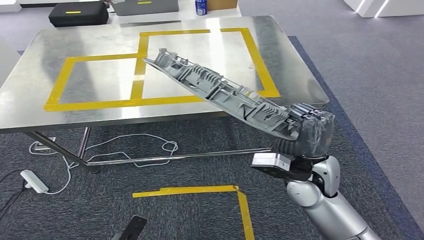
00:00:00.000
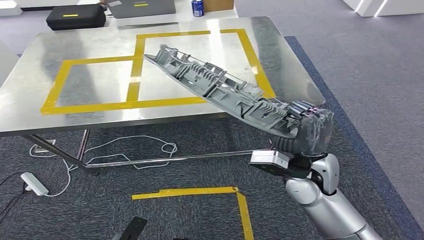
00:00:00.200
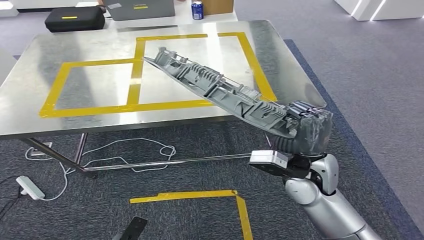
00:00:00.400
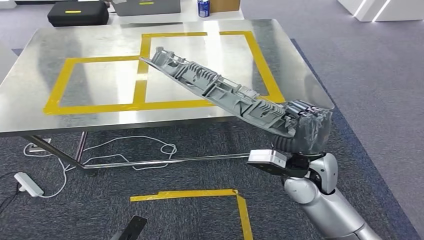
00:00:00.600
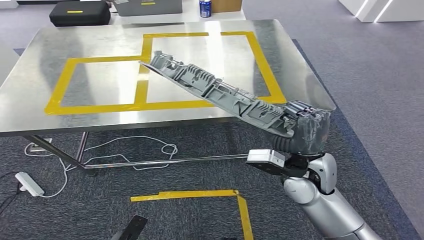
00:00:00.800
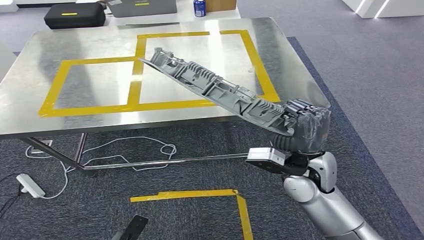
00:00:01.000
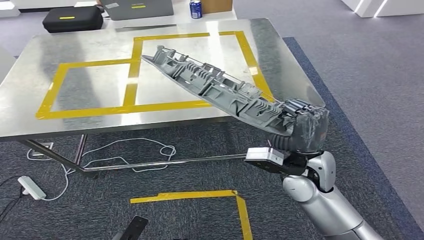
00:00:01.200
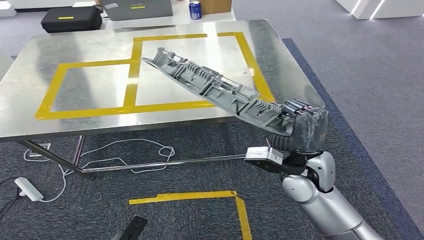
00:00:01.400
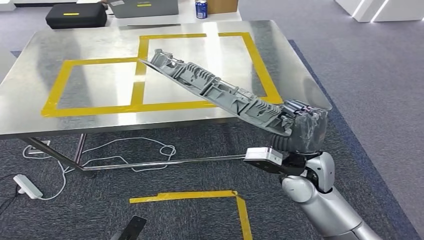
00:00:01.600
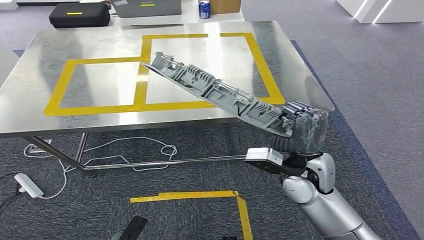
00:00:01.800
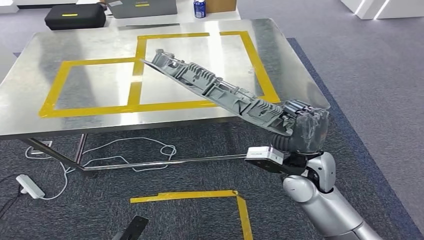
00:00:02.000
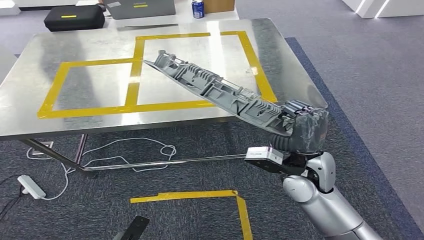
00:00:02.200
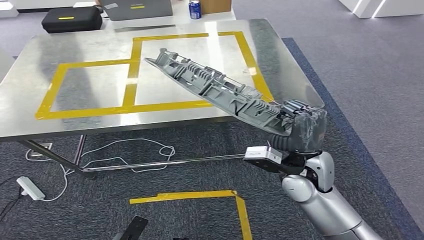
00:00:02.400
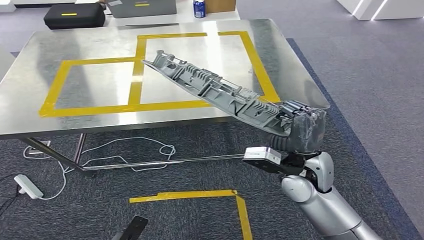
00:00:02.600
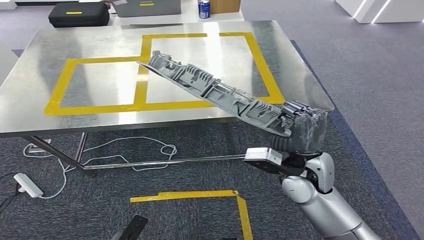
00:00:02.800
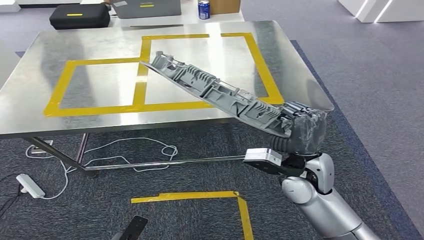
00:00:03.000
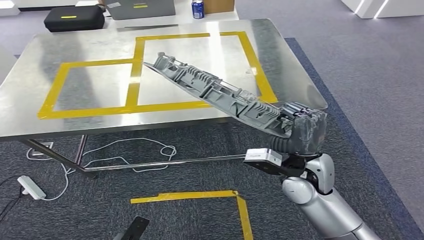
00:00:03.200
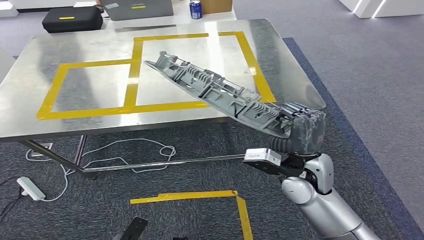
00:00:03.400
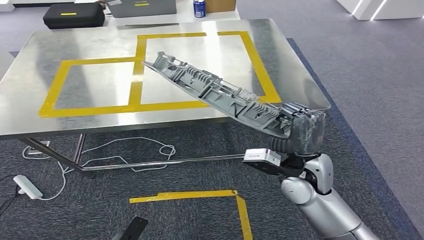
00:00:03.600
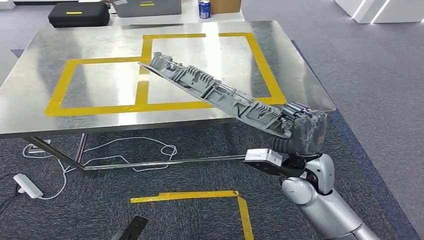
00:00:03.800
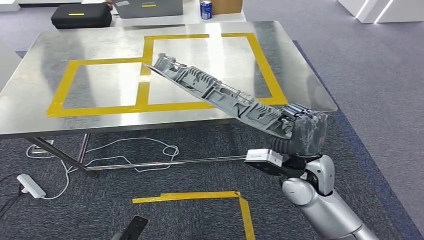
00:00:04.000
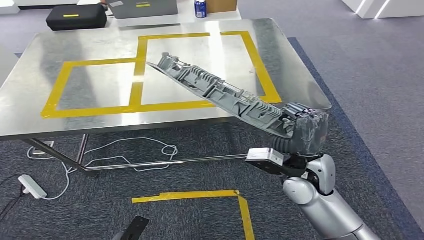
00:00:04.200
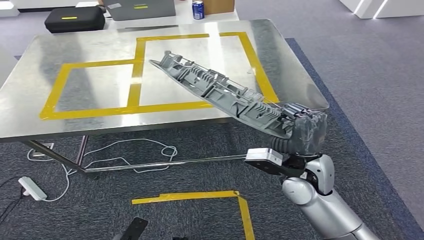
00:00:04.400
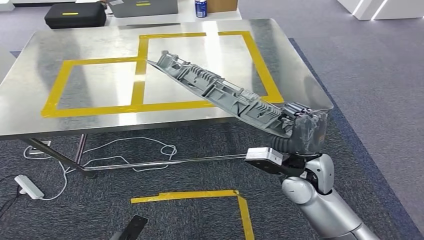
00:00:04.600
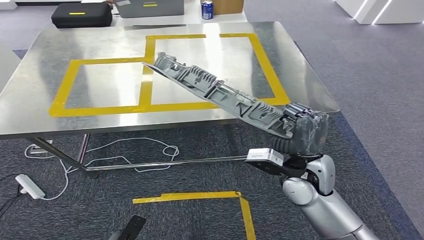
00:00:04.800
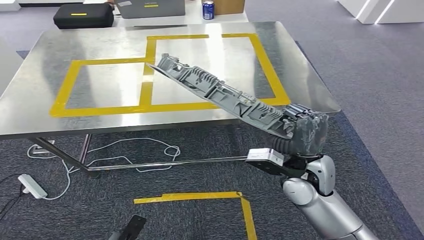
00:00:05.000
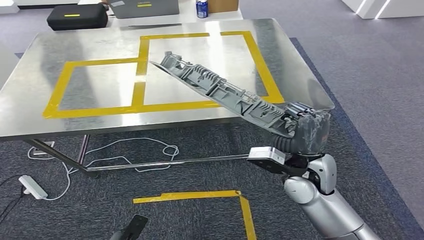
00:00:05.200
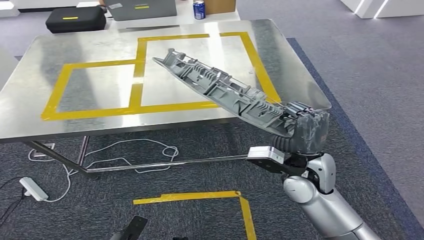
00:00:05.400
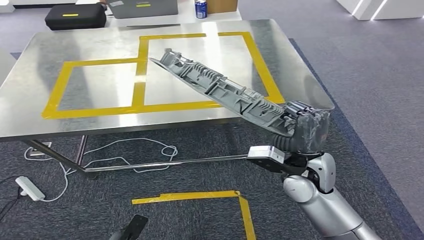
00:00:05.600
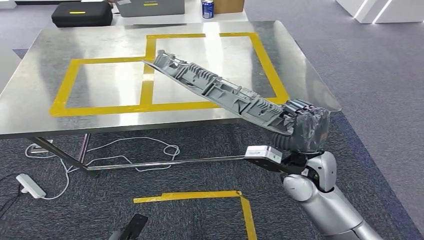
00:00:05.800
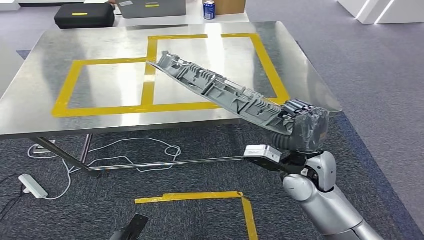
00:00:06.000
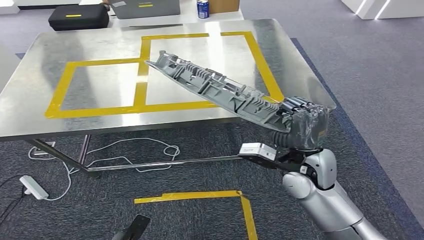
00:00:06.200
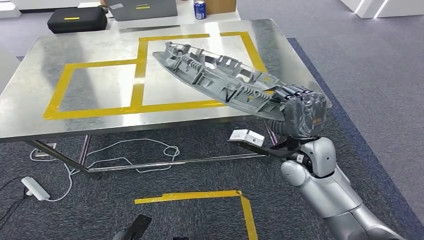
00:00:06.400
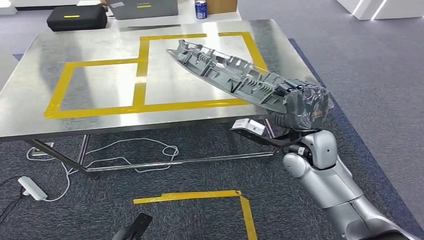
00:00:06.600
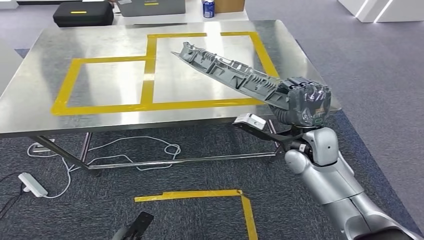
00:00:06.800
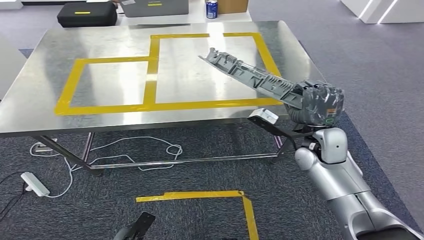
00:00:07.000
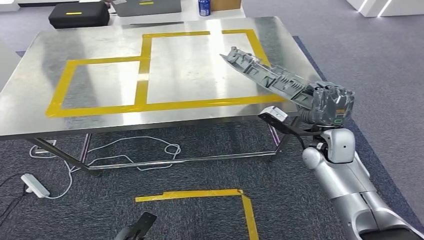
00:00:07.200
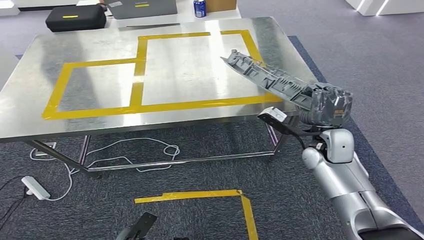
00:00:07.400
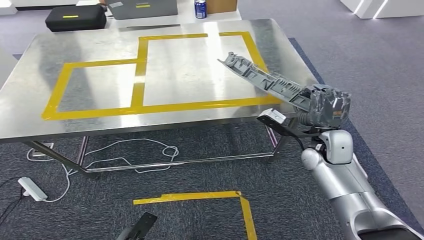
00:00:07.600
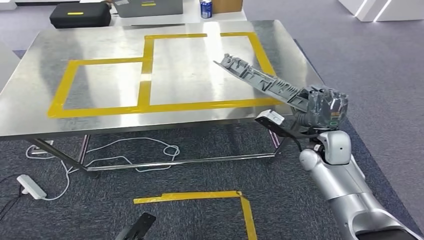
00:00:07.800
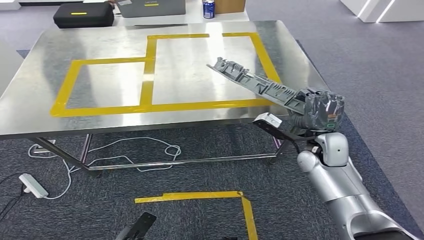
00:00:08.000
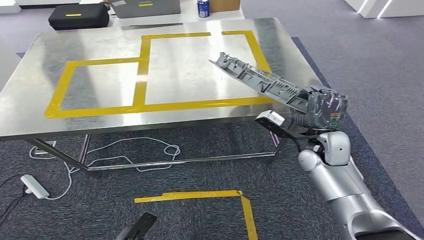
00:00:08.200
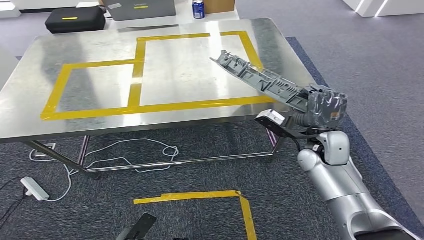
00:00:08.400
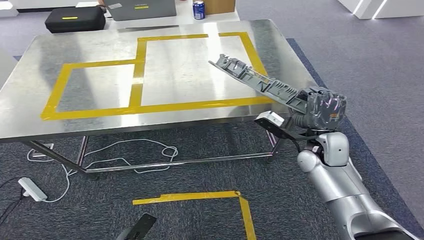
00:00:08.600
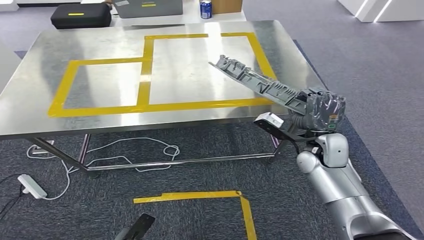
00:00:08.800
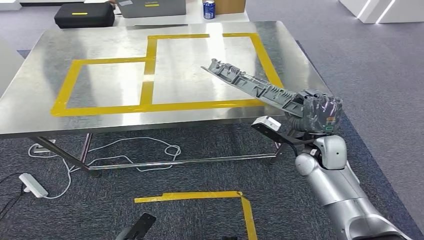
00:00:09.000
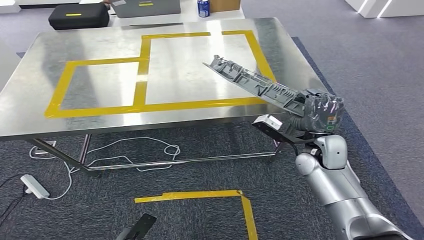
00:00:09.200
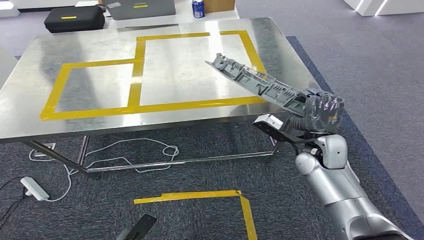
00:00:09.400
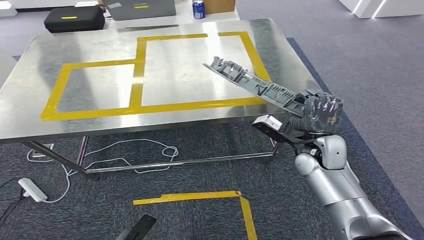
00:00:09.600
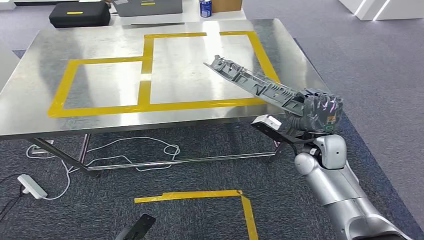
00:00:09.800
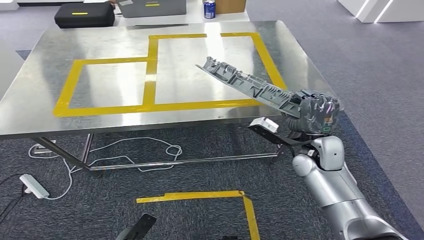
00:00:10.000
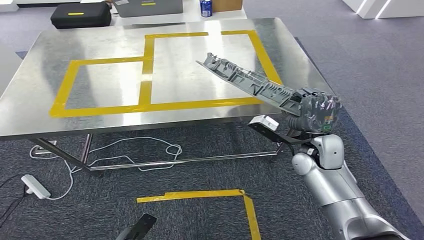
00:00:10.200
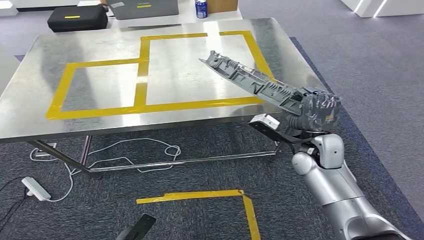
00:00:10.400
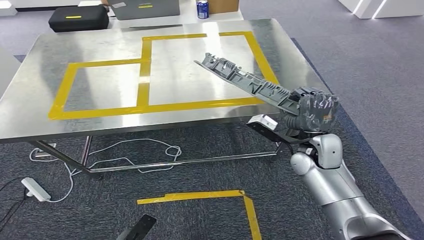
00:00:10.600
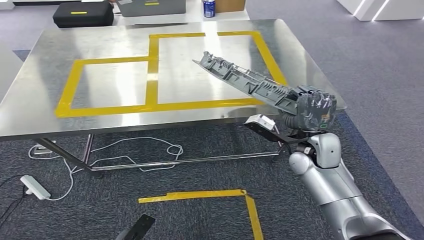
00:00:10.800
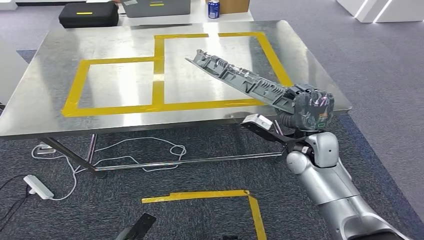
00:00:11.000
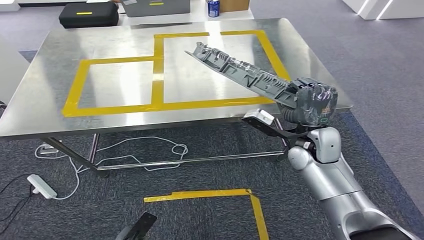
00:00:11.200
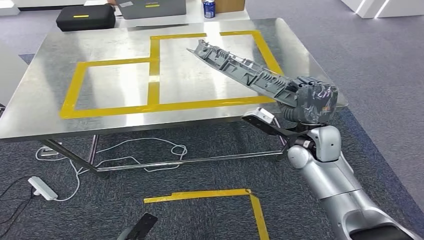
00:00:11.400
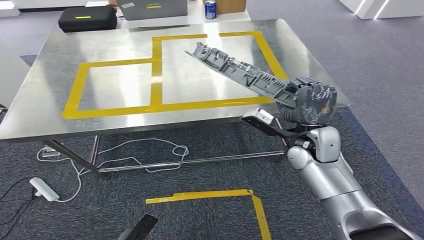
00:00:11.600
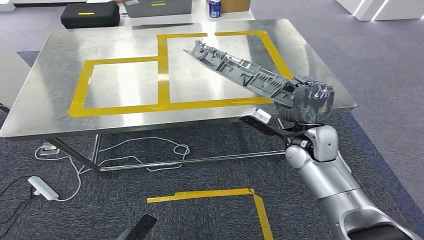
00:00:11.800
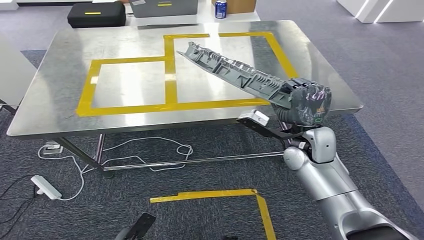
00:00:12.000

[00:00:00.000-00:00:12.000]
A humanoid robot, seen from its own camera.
00:00:01.600 to 00:00:06.000: Both hands stay about where they are.
00:00:09.000 to 00:00:10.400: Both hands stay put.

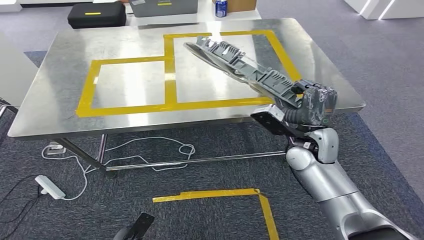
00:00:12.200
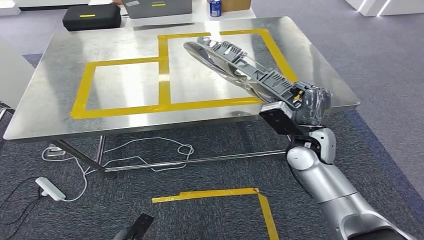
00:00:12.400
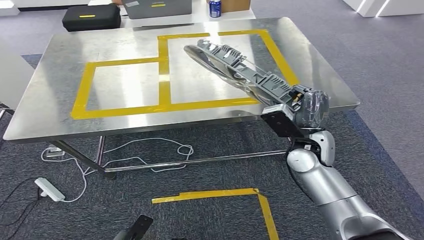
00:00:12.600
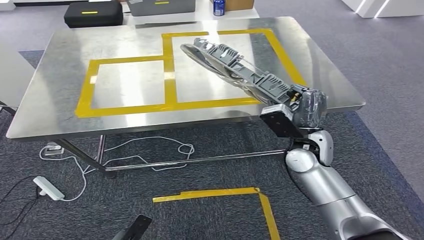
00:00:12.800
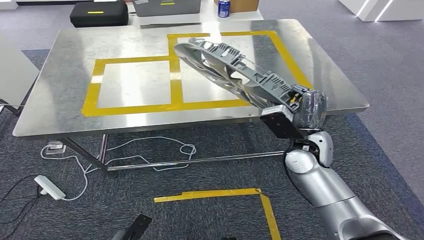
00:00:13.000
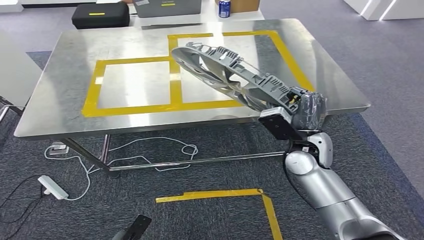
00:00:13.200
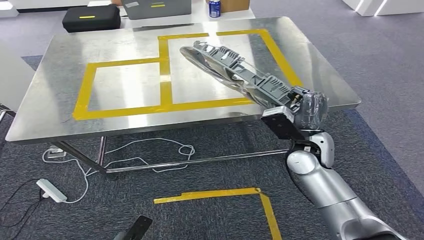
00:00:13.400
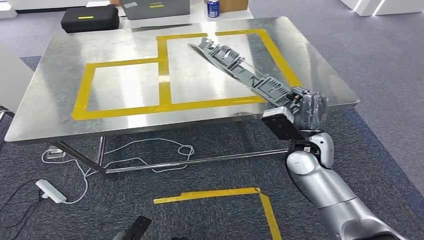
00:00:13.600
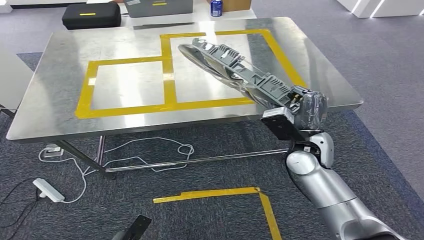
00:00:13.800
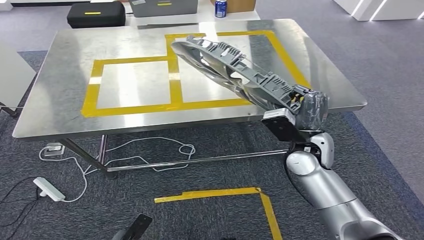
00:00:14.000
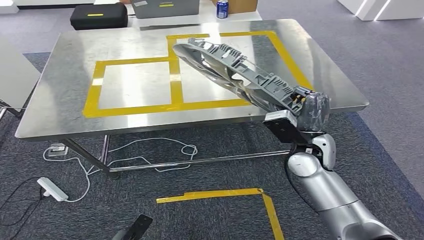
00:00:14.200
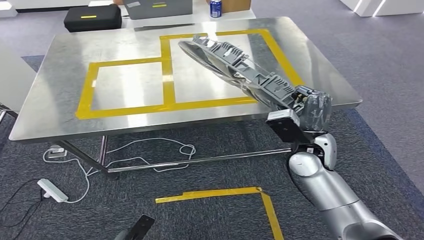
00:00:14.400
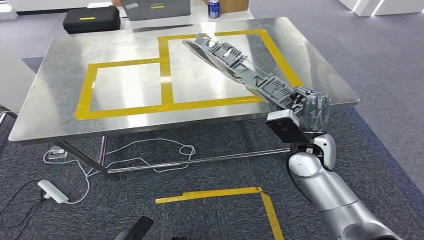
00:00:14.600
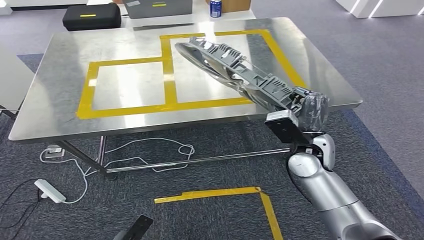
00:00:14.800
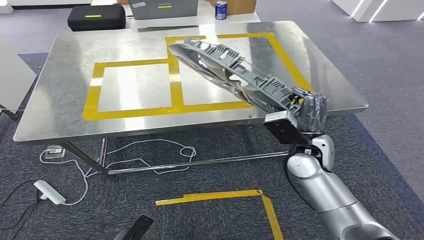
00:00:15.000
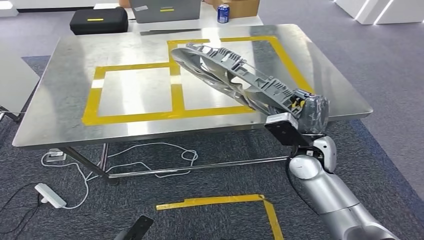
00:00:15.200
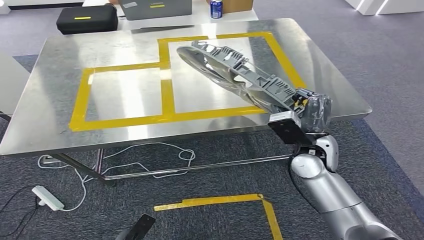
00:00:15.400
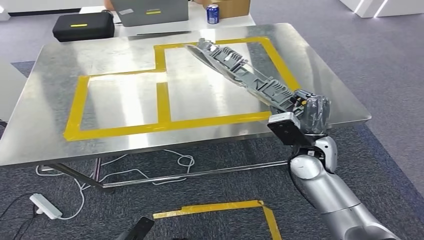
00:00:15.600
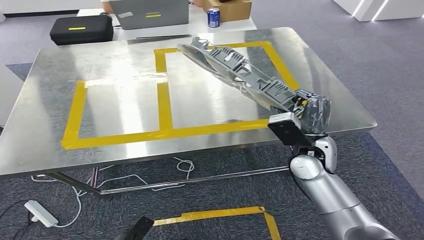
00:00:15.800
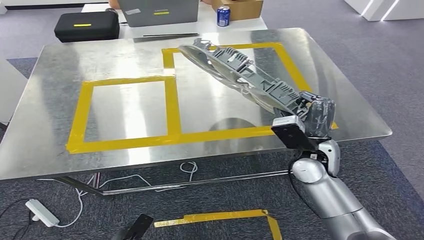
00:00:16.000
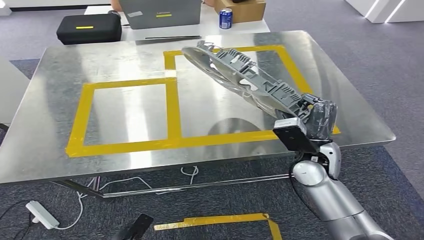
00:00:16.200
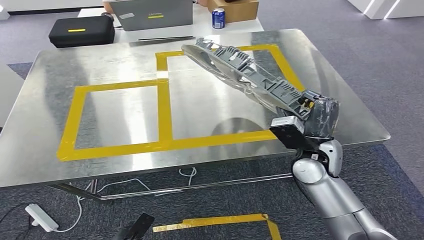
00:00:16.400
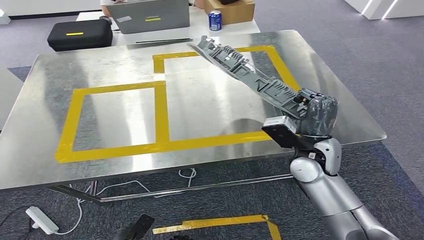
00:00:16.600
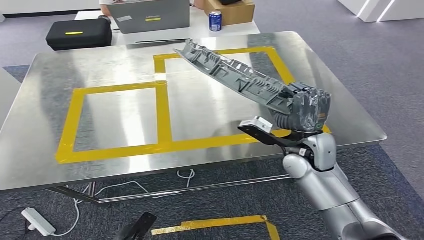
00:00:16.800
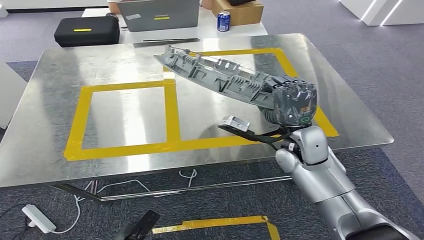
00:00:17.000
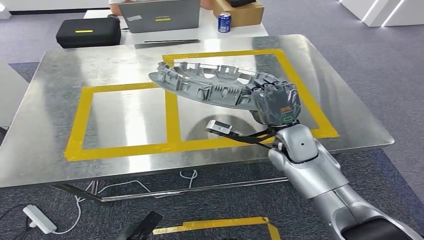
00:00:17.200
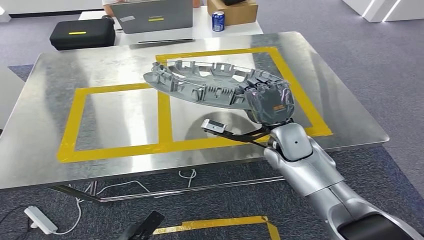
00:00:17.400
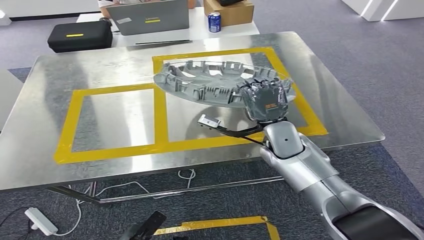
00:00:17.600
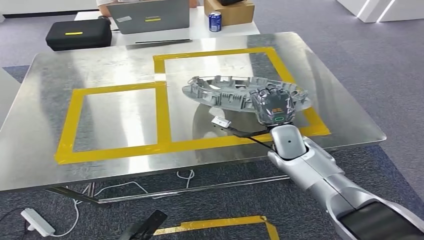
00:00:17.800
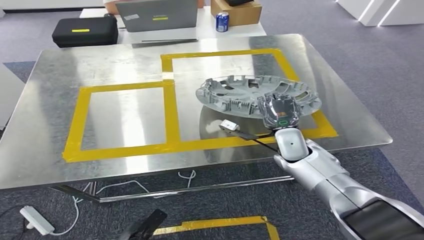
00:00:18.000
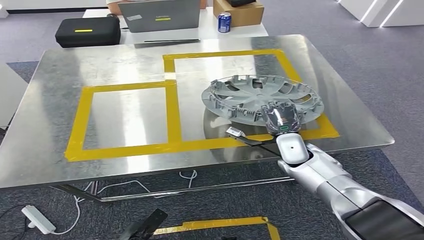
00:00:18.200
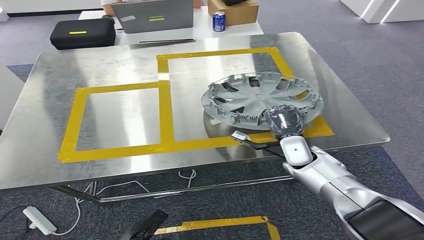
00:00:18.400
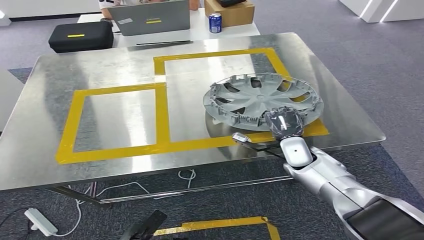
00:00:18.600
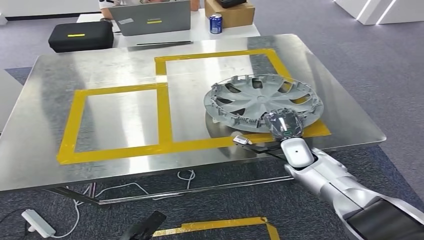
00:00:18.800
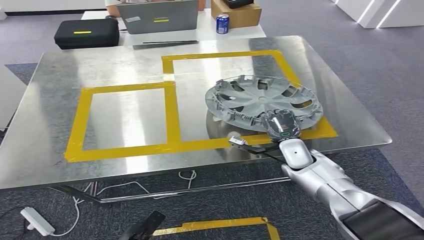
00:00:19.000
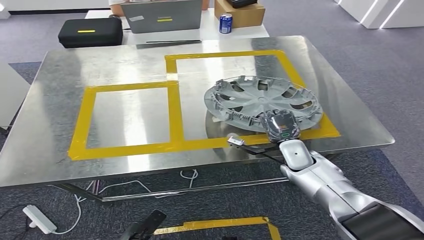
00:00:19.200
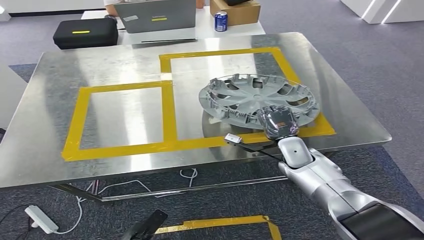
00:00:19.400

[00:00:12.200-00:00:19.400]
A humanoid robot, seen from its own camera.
00:00:18.000 to 00:00:19.400: There are only small adjustments of the hands.
